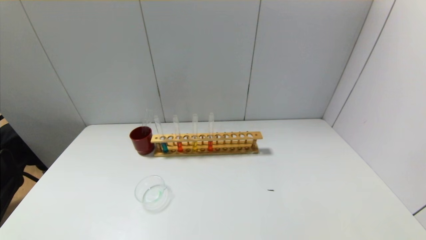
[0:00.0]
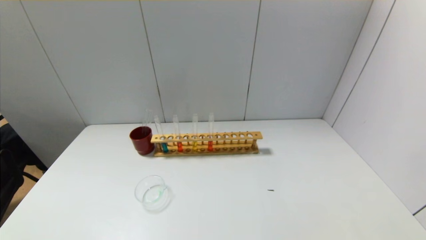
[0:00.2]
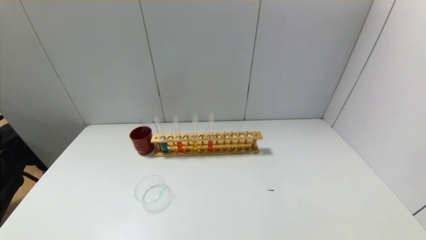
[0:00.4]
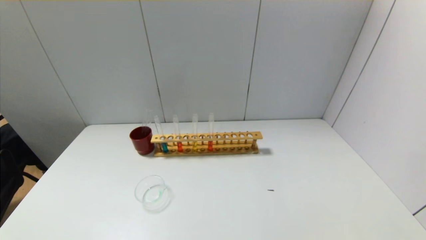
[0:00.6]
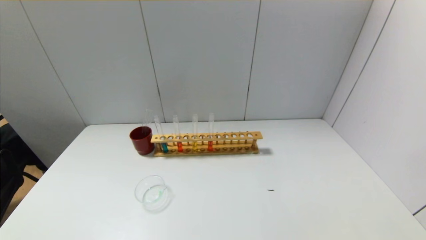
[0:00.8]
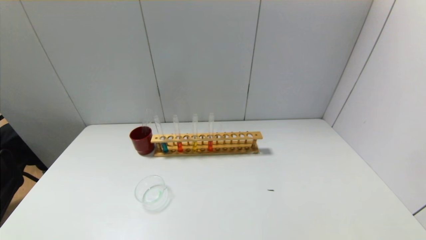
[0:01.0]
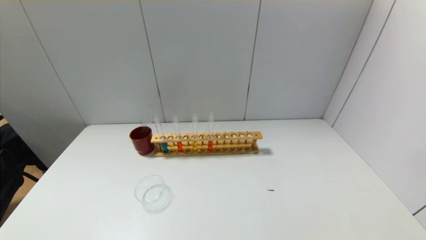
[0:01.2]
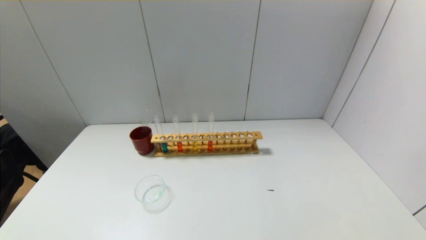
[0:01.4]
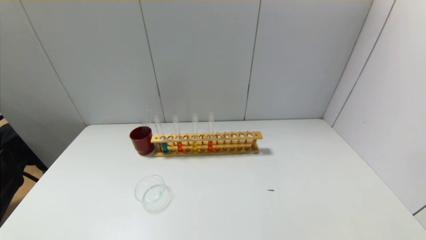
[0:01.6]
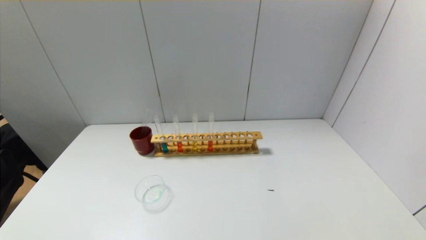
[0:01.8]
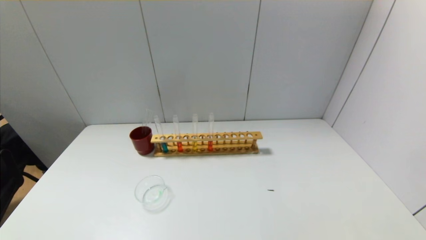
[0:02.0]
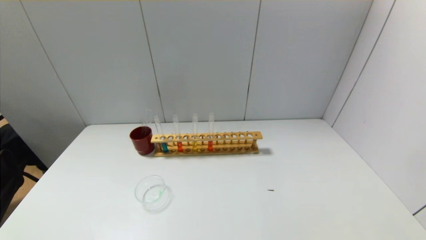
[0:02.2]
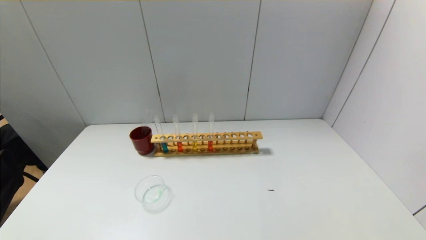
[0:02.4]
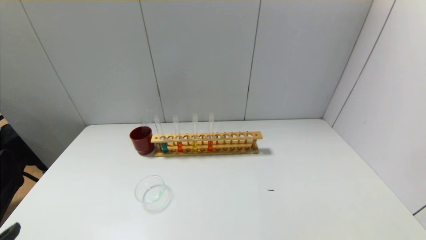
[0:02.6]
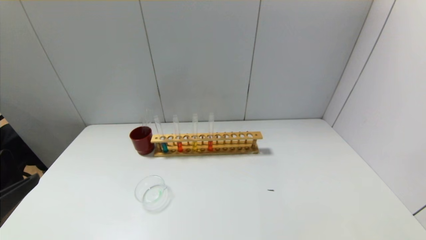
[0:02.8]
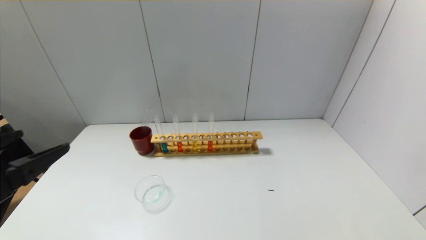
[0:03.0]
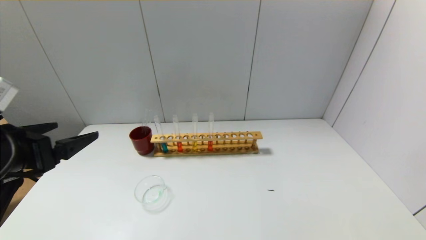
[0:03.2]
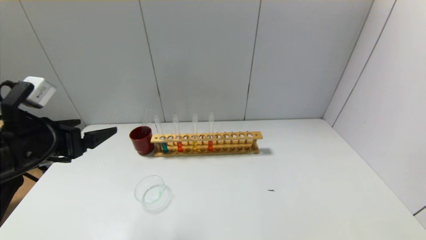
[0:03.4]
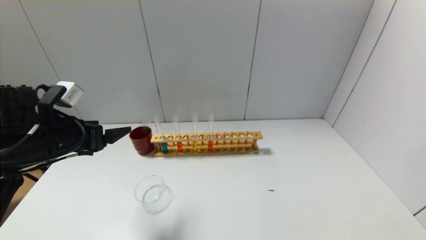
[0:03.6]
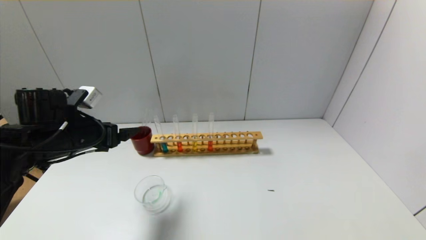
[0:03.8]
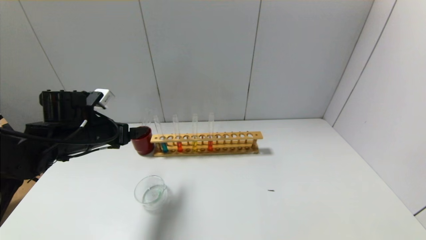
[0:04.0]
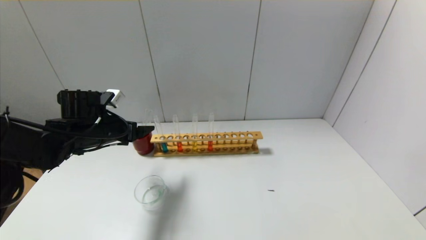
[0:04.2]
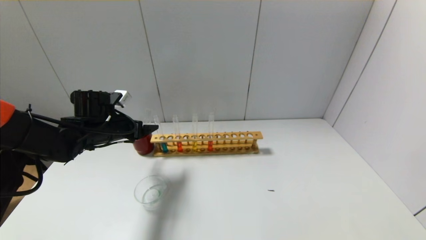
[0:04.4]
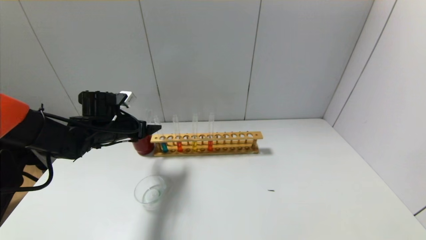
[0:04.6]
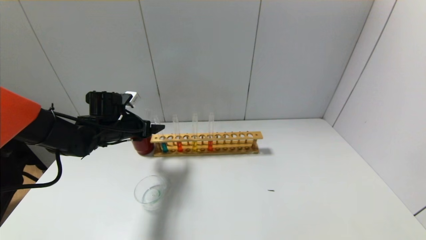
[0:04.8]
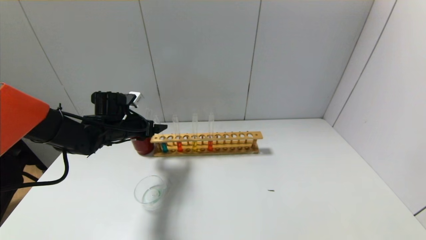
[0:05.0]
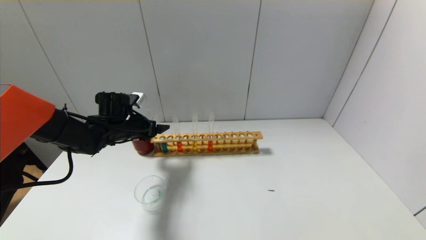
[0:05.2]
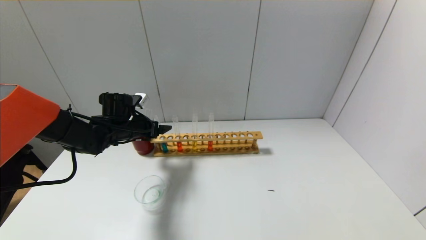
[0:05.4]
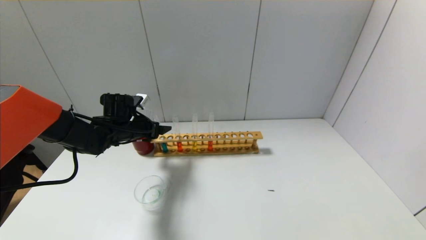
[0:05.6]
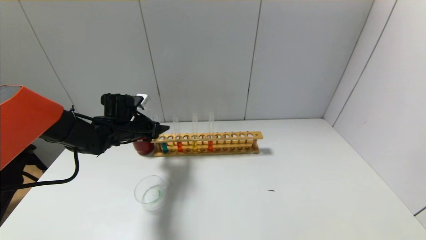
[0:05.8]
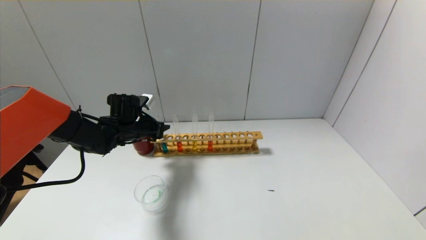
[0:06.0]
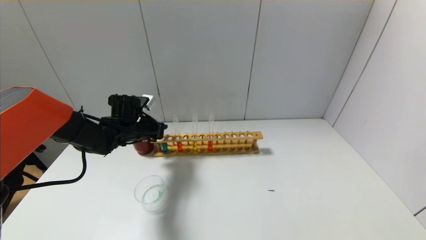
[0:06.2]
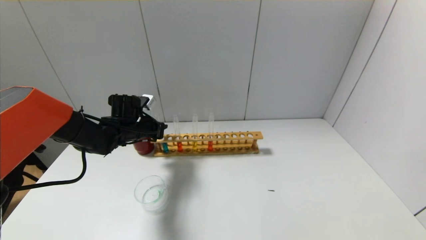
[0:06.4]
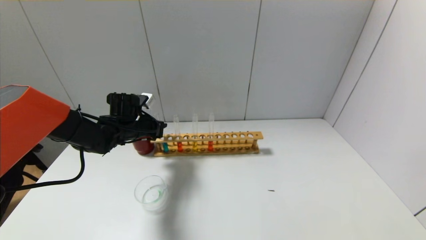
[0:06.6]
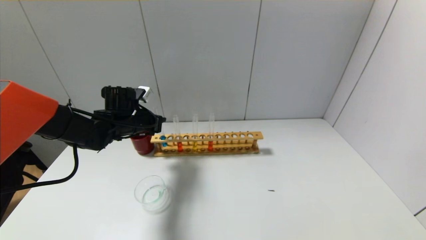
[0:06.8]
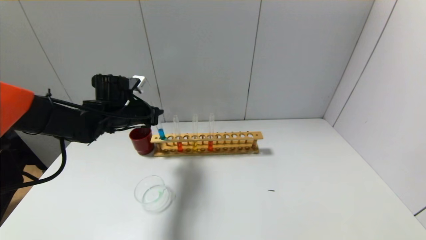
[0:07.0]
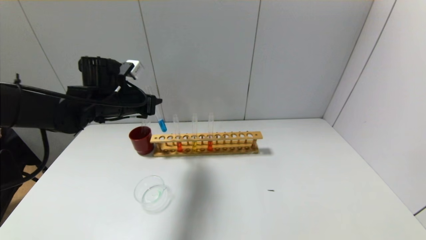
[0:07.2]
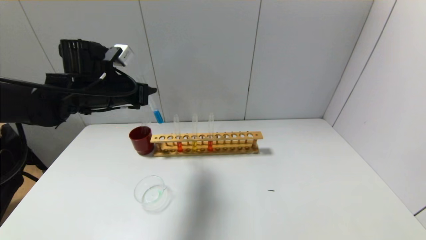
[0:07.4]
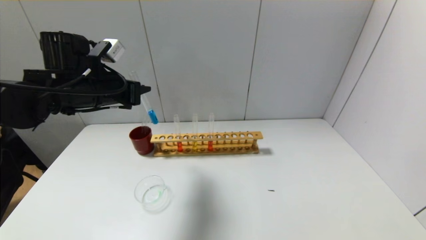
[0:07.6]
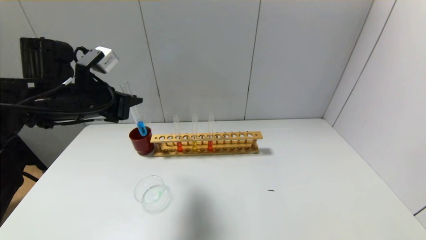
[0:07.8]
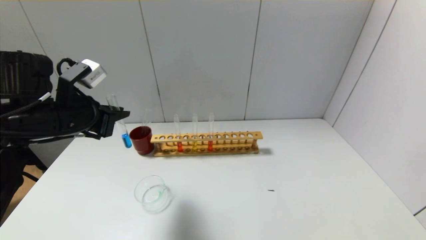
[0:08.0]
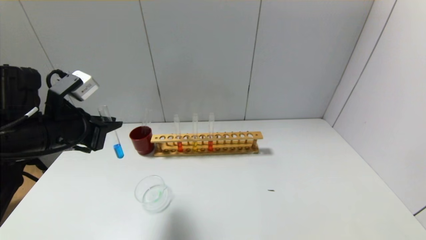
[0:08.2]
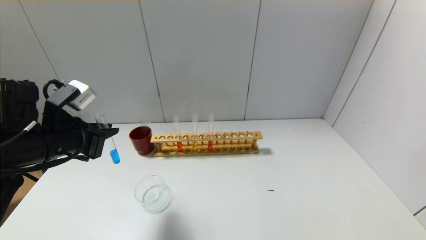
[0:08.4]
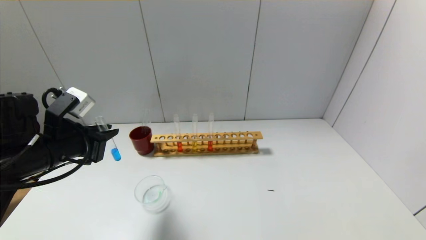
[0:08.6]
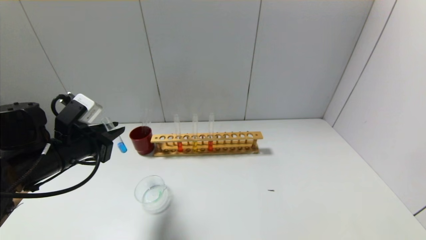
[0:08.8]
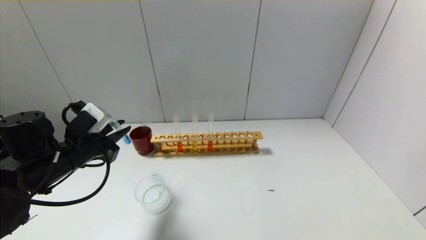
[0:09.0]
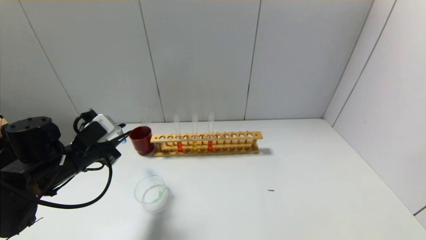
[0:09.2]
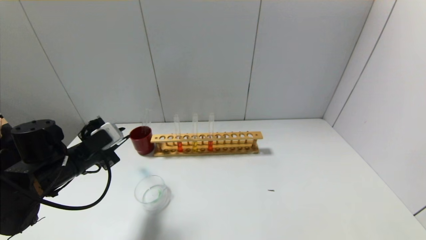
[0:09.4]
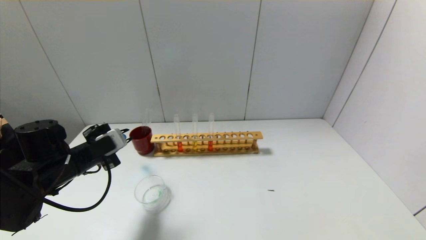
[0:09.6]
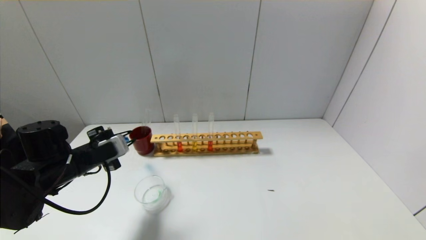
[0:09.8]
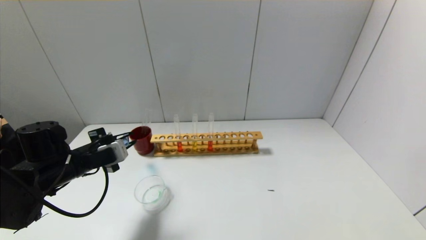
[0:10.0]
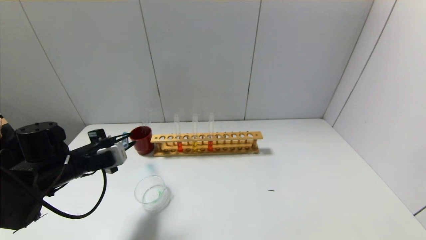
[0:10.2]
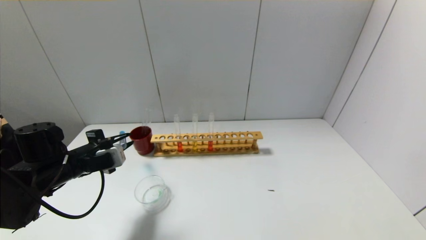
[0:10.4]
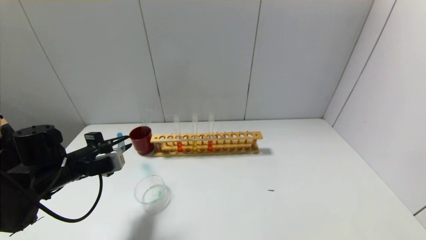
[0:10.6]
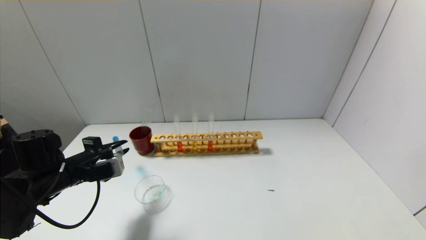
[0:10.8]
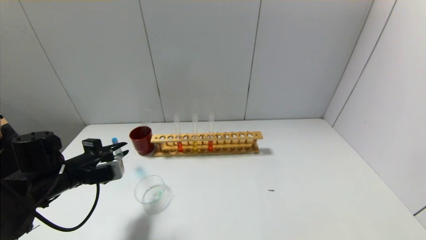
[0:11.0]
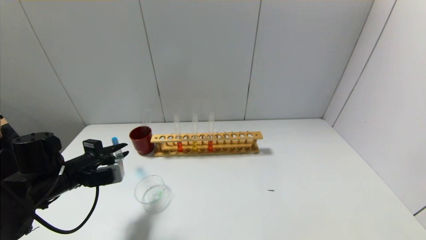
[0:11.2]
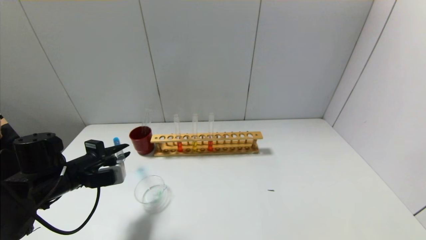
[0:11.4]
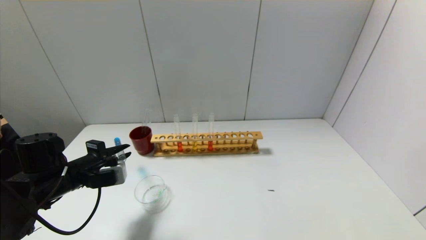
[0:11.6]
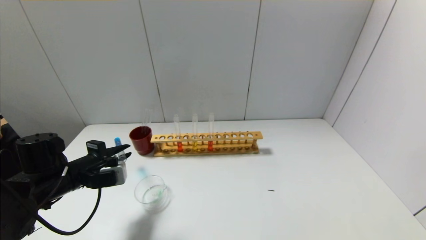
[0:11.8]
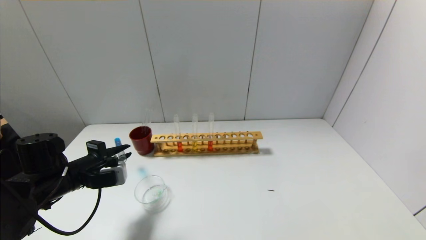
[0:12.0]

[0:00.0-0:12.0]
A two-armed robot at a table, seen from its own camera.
Step, 0:00.0 to 0:06.0: Grasp the blue reagent with the left gripper.
0:00.0 to 0:01.6: Both grippers stay about where they are.
0:01.6 to 0:03.0: The left gripper goes about 20 cm upward and forward.
0:03.0 to 0:04.4: The left gripper travels forward by approximately 25 cm.
0:04.4 to 0:06.0: The left gripper changes place by some 5 cm, and closes up.
0:06.0 to 0:07.6: The left gripper moves upward and backward, approximately 15 cm.
0:07.6 to 0:09.0: The left gripper shifts about 10 cm downward and backward.
0:10.4 to 0:12.0: The grippers stay close to where they were, moving slightly.

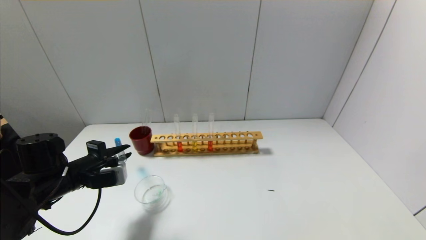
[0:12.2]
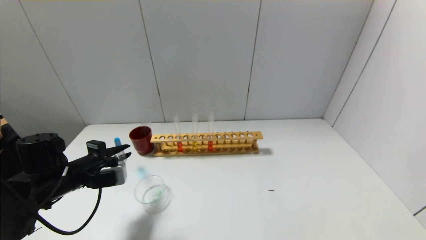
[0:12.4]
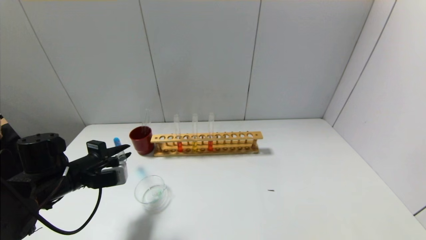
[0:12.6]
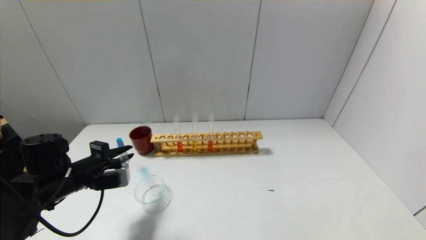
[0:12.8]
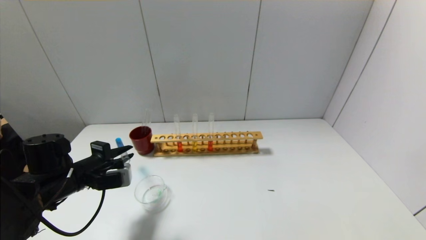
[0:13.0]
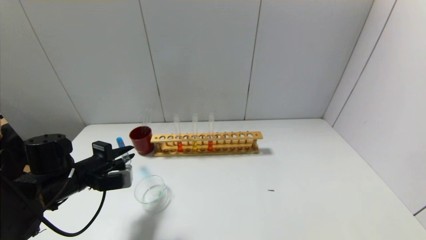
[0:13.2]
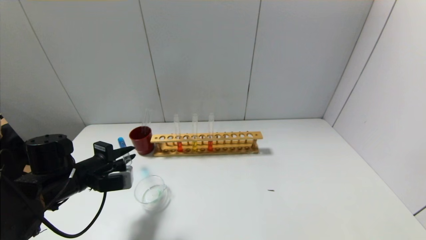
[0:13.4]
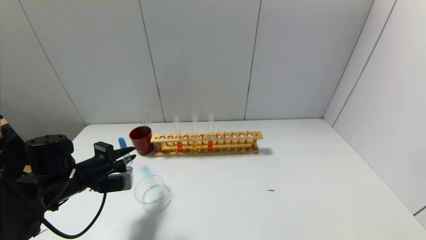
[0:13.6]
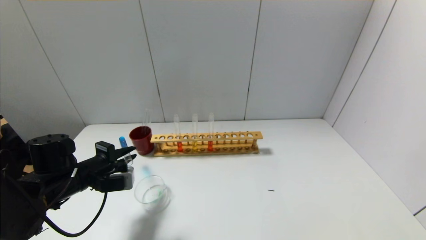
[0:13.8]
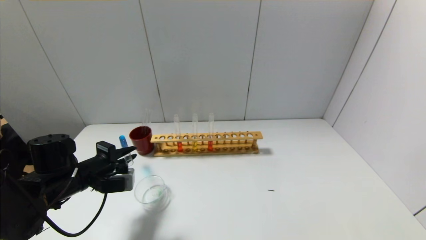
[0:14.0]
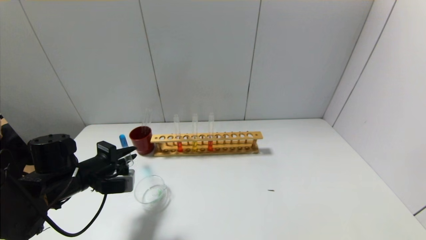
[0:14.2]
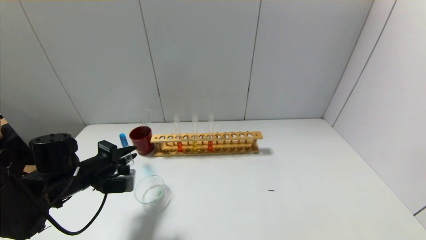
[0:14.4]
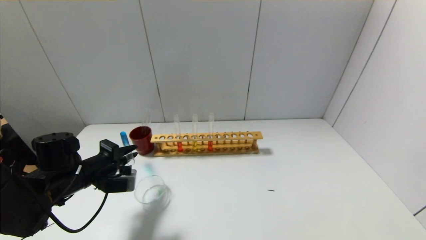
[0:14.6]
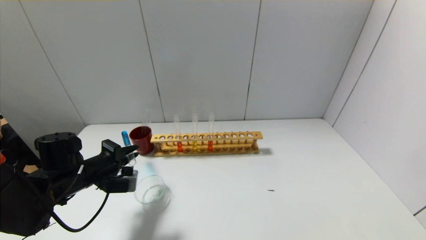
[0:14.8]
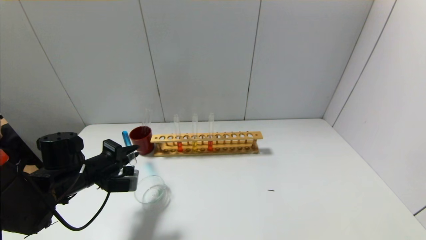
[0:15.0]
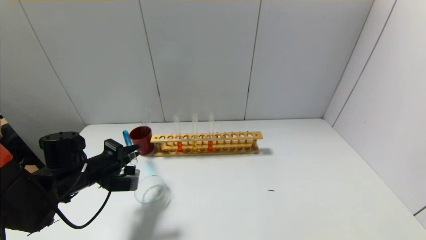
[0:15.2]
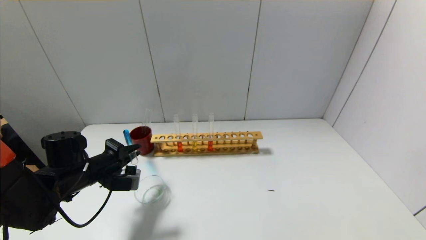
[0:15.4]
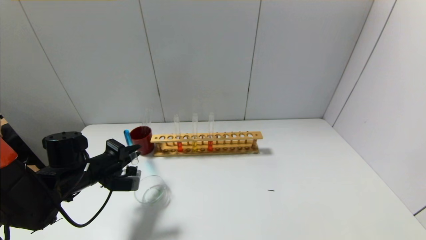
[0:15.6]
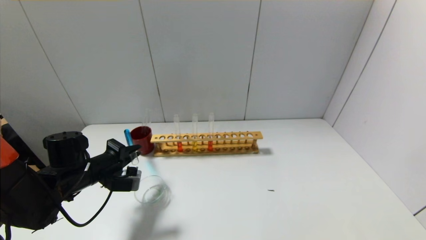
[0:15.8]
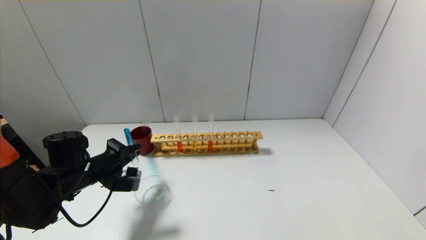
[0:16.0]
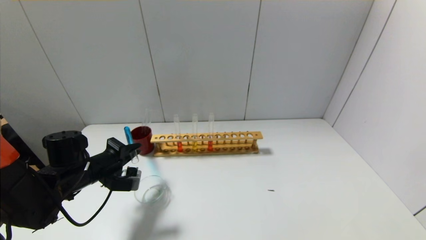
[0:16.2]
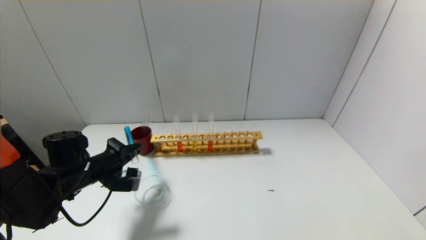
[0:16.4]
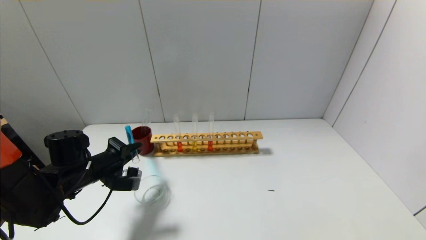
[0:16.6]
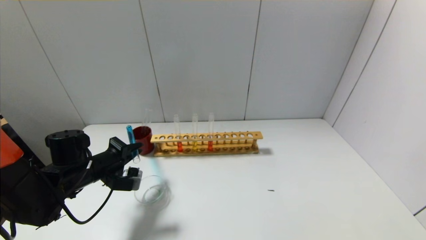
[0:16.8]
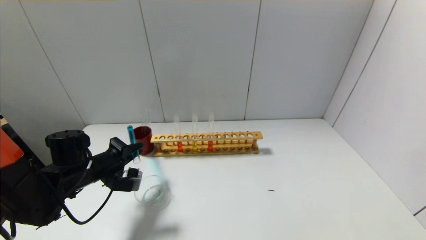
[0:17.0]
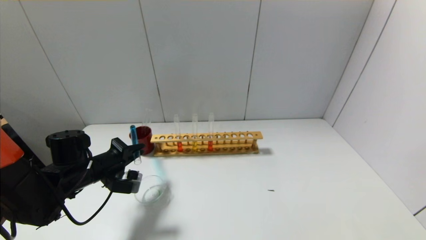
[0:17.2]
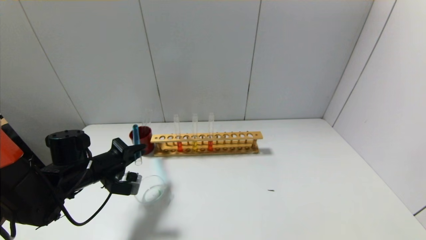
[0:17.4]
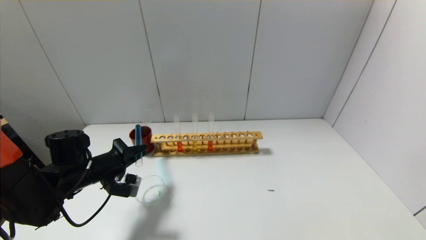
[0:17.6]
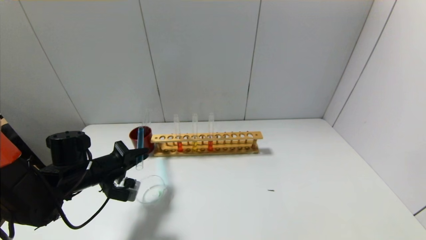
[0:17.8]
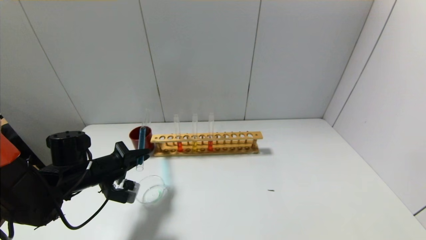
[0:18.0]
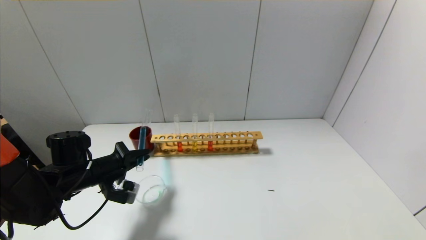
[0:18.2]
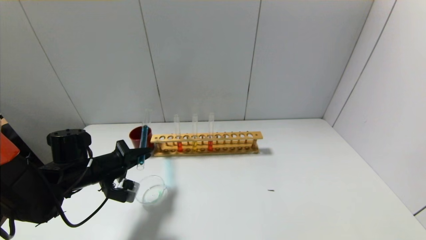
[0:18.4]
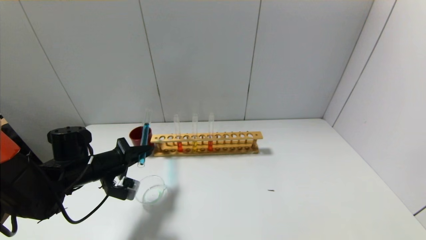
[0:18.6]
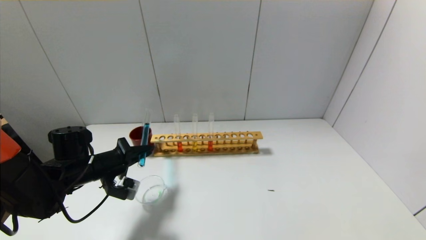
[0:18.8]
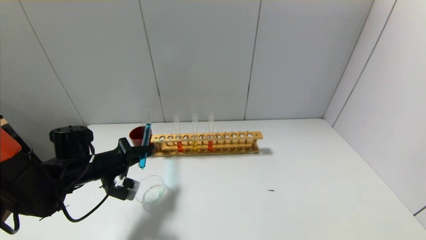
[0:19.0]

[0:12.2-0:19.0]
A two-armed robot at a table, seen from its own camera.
0:12.2 to 0:13.6: The two grippers keep their place.
0:13.6 to 0:16.2: The grippers stay close to where they were, moving slightly.
0:16.2 to 0:17.6: The grippers make only small movements.
0:17.6 to 0:19.0: The grippers stay close to where they were, moving slightly.
